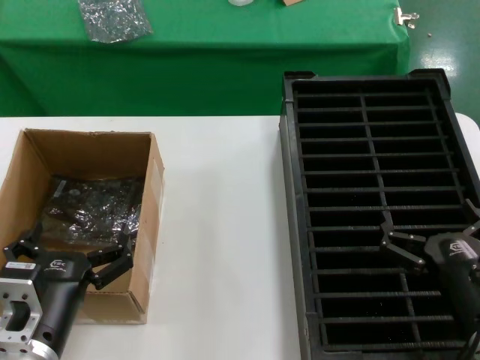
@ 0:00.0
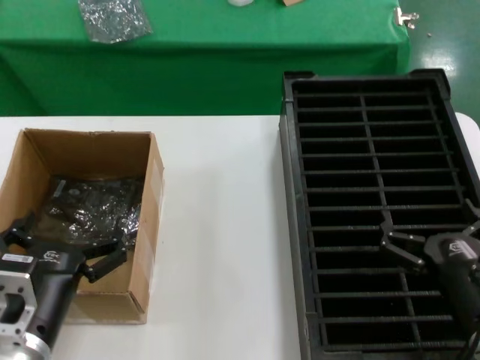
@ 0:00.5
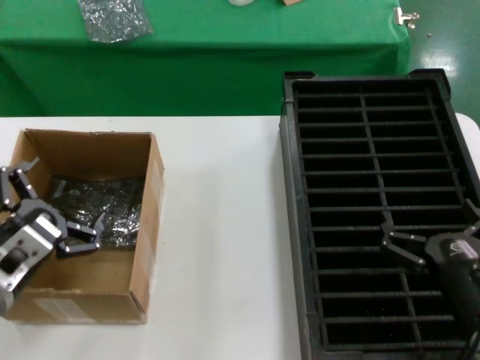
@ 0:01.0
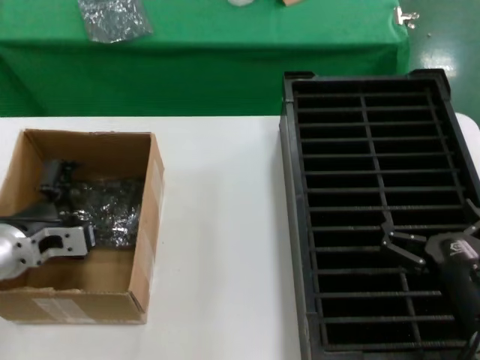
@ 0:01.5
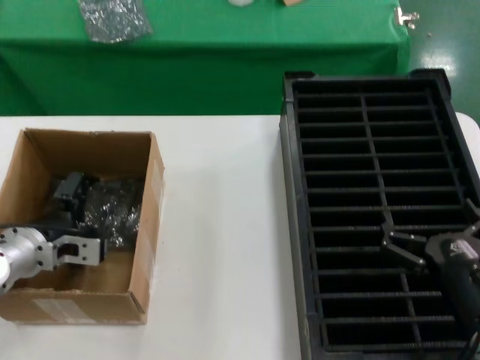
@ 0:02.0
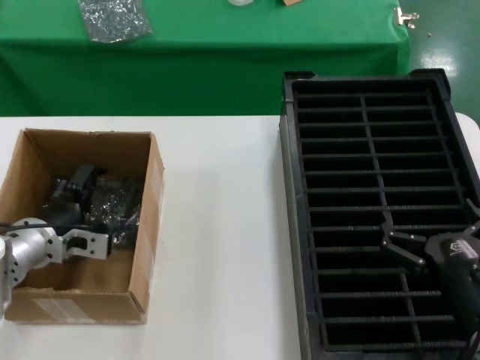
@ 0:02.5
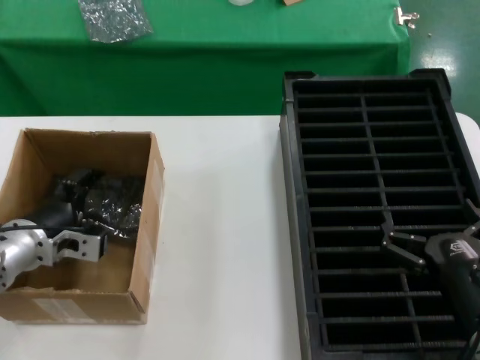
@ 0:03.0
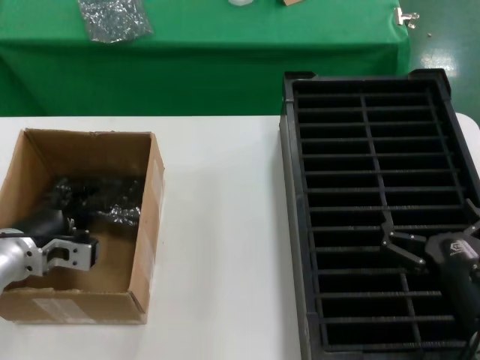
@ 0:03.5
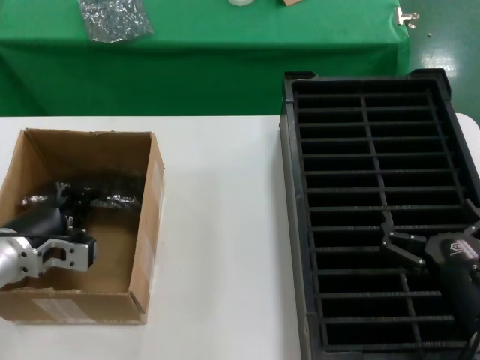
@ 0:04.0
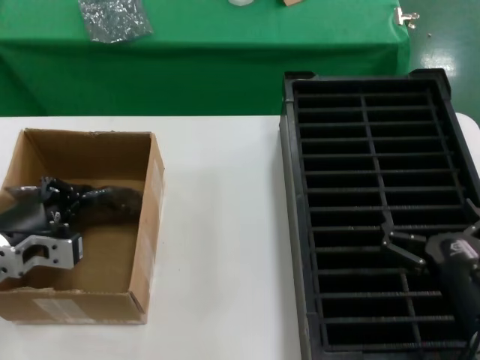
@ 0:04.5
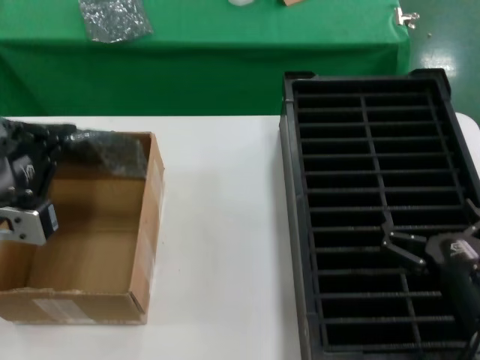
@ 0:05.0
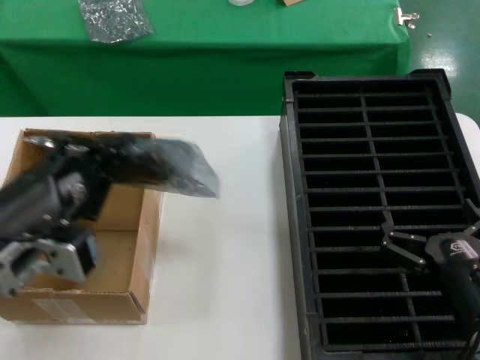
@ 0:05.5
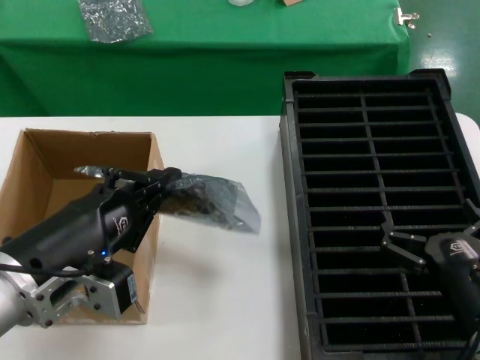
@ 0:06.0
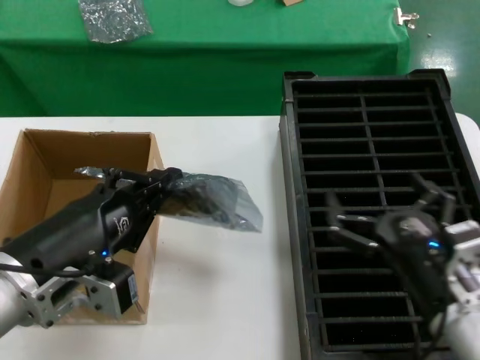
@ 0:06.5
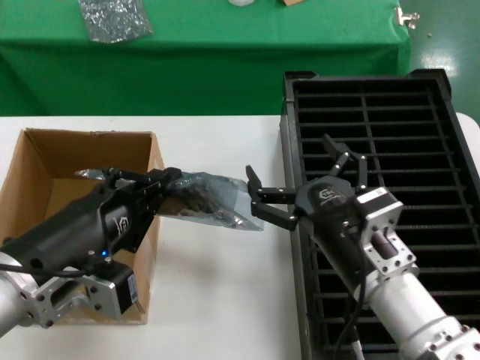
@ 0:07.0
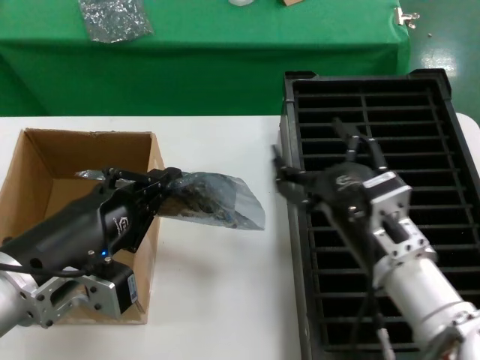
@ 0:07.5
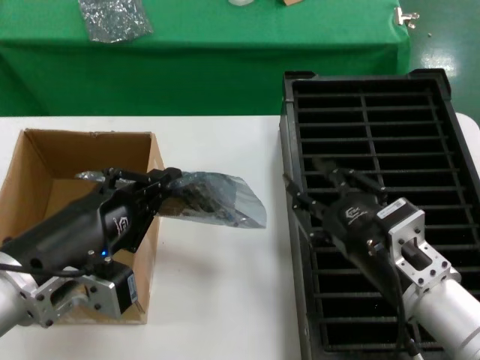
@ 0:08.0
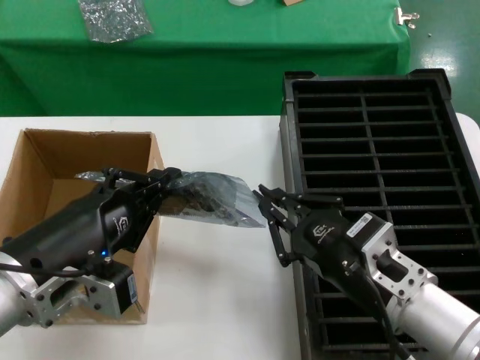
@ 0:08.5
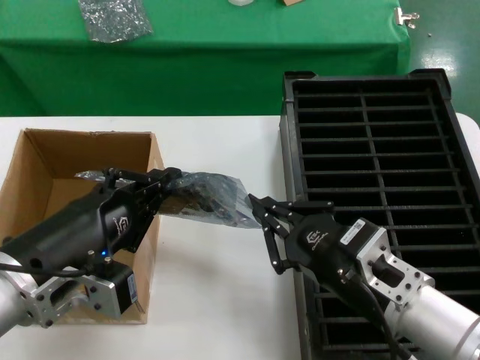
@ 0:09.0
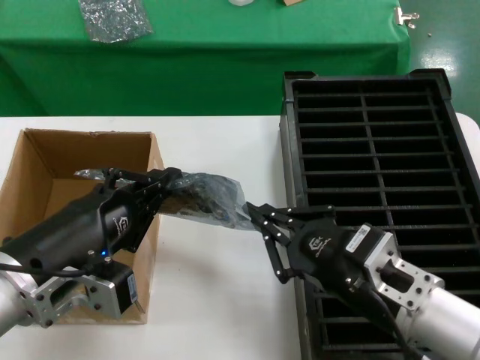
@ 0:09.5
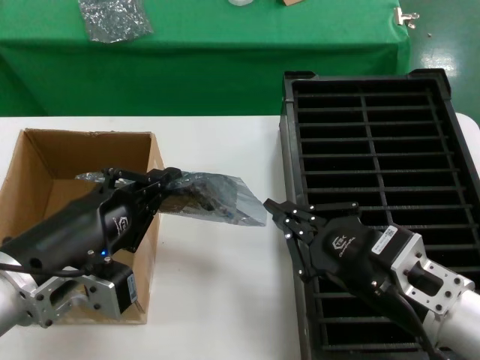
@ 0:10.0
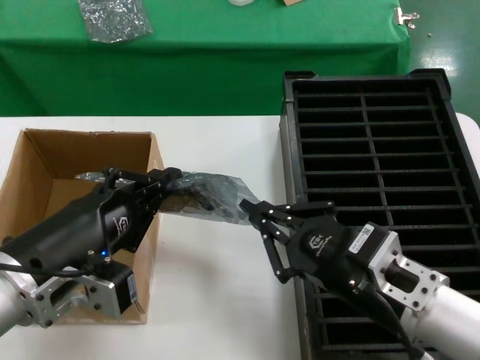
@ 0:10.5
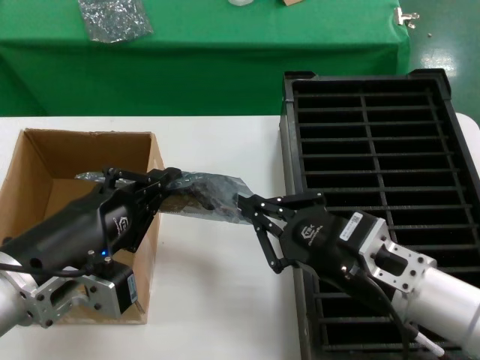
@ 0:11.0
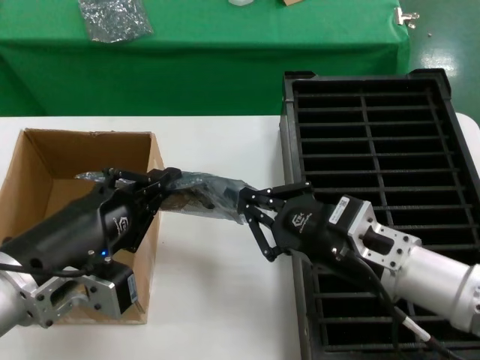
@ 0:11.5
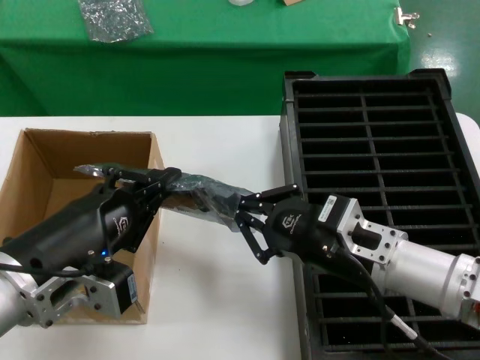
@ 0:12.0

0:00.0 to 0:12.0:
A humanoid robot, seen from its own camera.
Task of the whole recording: take out graphics card from box remove packaging put into black container.
Step, 0:00.0 to 0:03.5: Grasp the bag.
Step, 0:04.5 to 0:06.0: Lift the bag.
0:00.0 to 0:02.0: The left hand is displaced forward and to the left by approximately 20 cm.
0:02.0 to 0:04.0: There are only small adjustments of the hands.
0:04.0 to 0:06.0: The left hand moves backward, upward and to the right, roughly 20 cm.
0:06.0 to 0:08.0: The right hand is displaced to the left and upward by some 10 cm.
0:08.0 to 0:10.0: There are only small adjustments of the hands.
0:10.0 to 0:12.0: The right hand moves forward, roughly 10 cm.

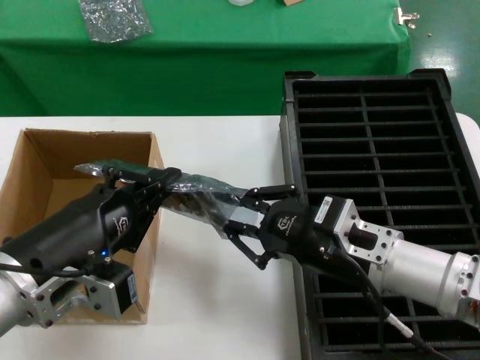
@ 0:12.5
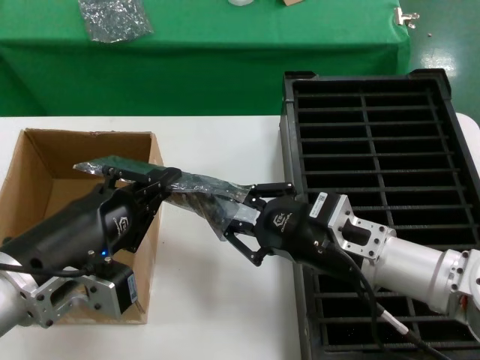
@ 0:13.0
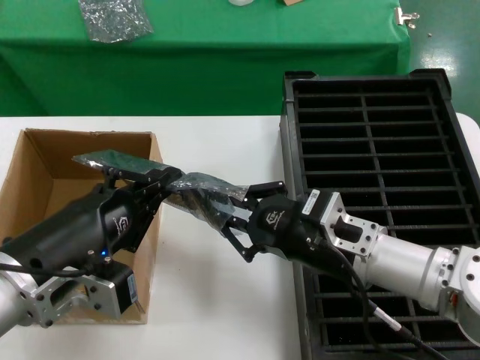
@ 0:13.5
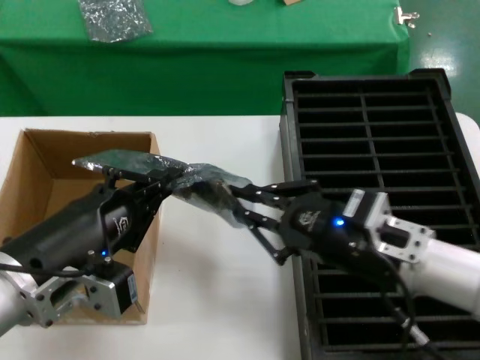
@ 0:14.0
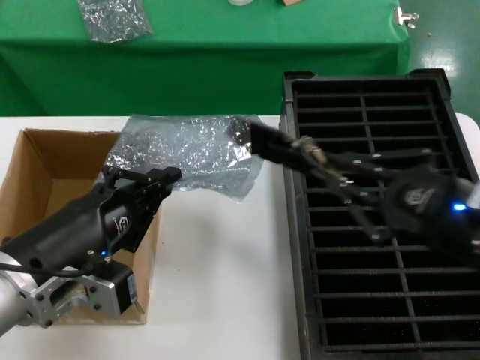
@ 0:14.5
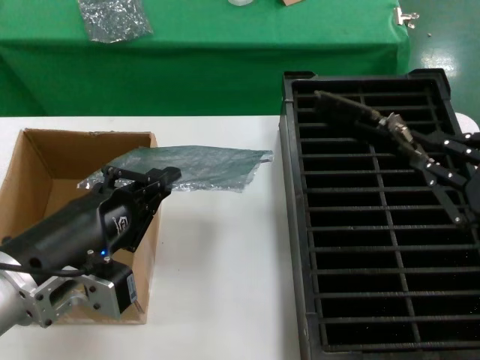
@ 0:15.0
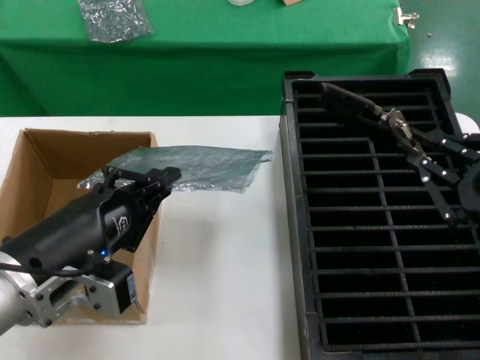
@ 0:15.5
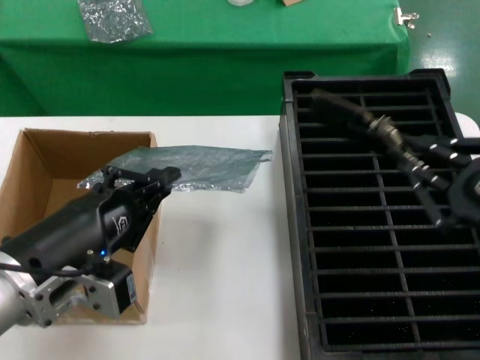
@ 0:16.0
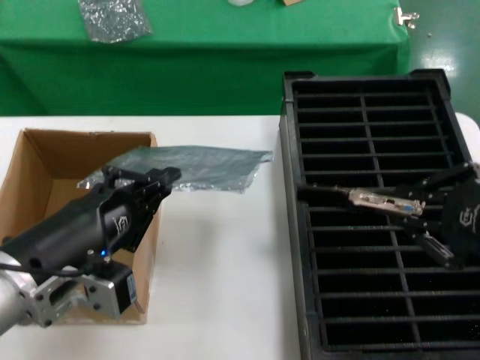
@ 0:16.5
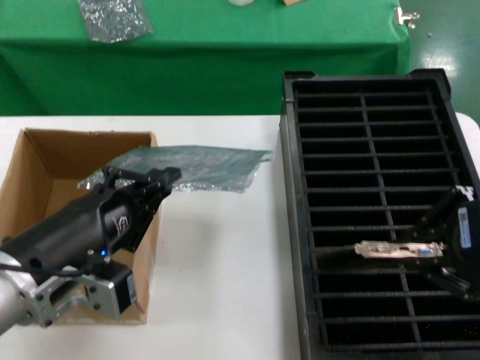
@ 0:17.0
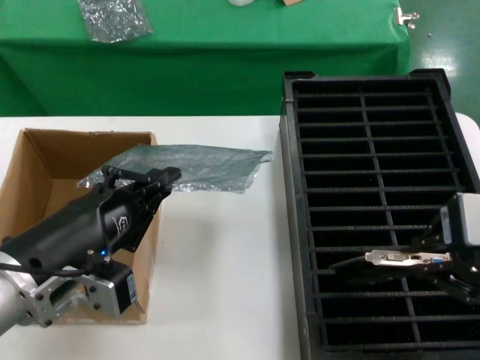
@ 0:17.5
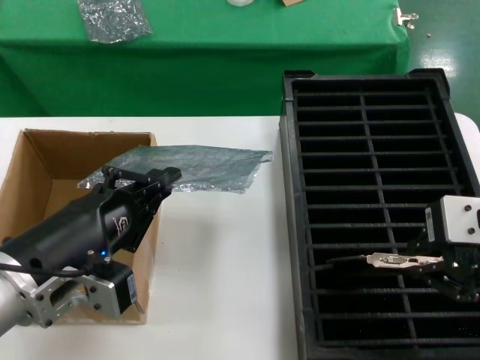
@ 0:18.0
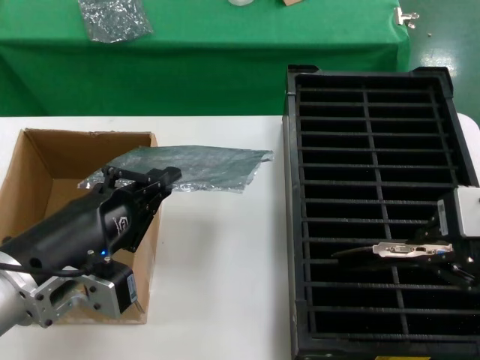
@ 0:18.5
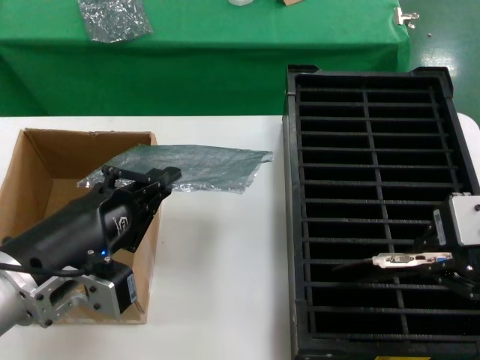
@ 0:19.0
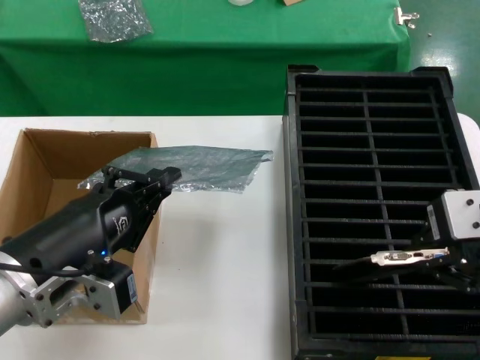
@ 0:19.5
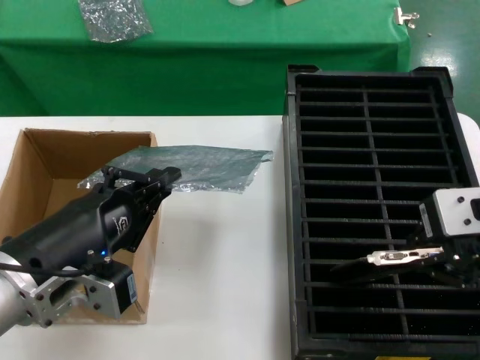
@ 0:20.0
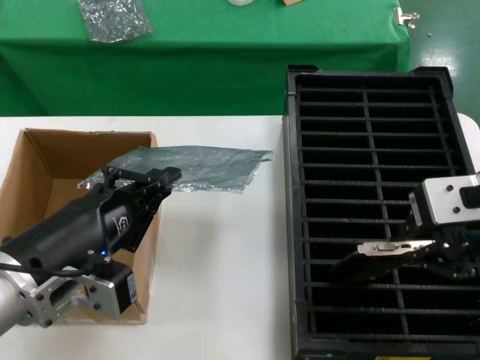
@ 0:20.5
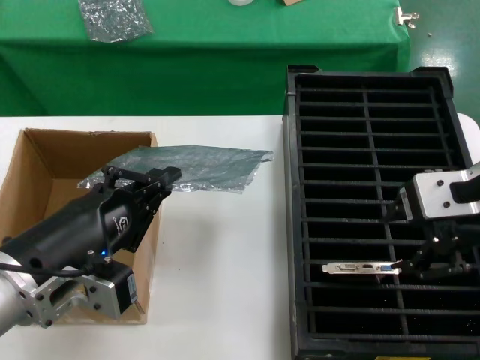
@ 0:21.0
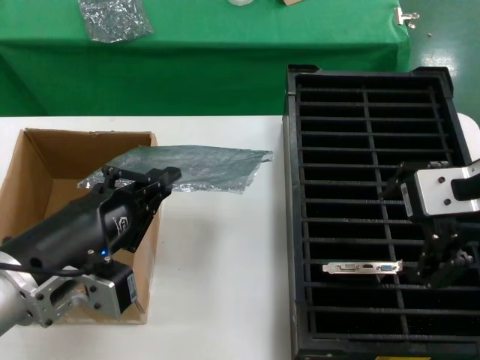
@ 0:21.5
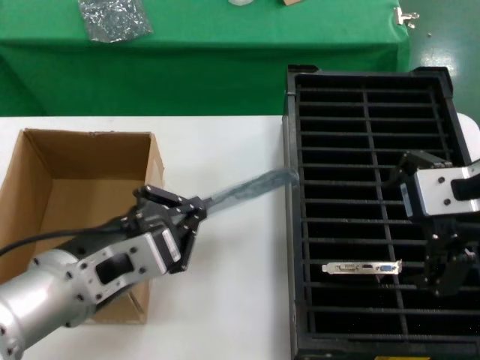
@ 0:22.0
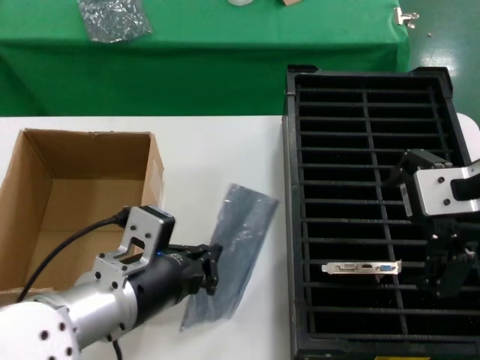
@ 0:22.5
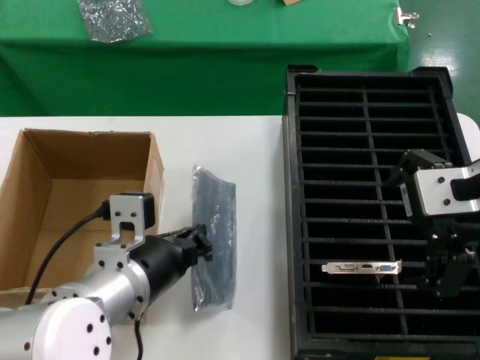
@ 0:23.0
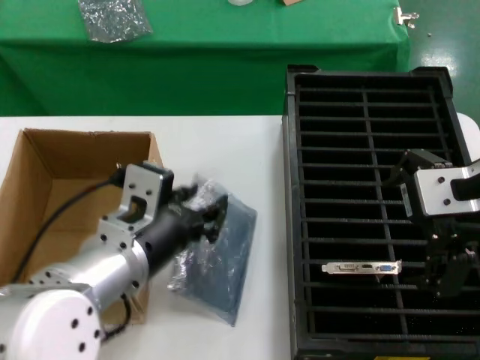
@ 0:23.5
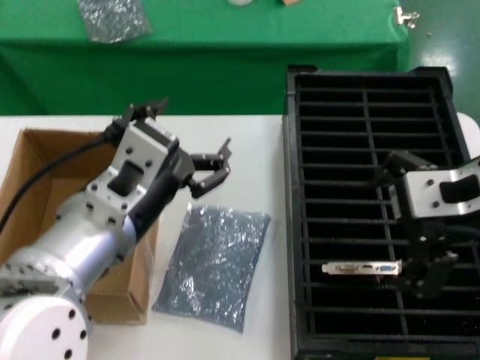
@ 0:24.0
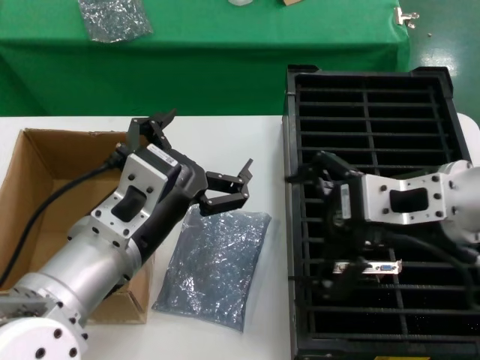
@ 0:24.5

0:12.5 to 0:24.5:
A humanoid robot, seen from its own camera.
Task of the whole recording: take out graphics card from box remove packaging put into black container.
Step, 0:12.5 to 0:14.5: Take out the hard disk of the bag.
Step, 0:15.0 to 0:20.5: Place the hard disk in the hard disk enclosure.
Step, 0:21.0 to 0:23.5: Place the down the bag.
0:12.5 to 0:14.5: The right hand goes some 15 cm to the right, backward and upward.
0:14.5 to 0:16.5: The right hand shifts some 5 cm upward.
0:16.5 to 0:18.5: The right hand shifts some 5 cm upward.
0:18.5 to 0:20.5: The hands move only a little.
0:20.5 to 0:22.5: The left hand goes approximately 5 cm to the right.
0:22.5 to 0:24.5: The right hand changes place by about 5 cm.

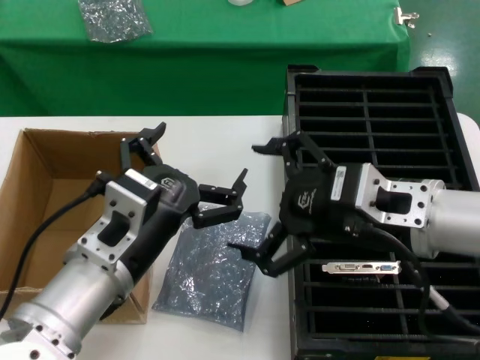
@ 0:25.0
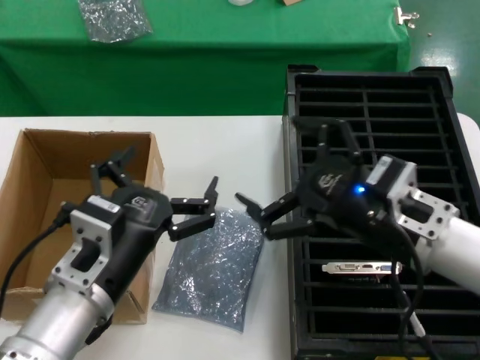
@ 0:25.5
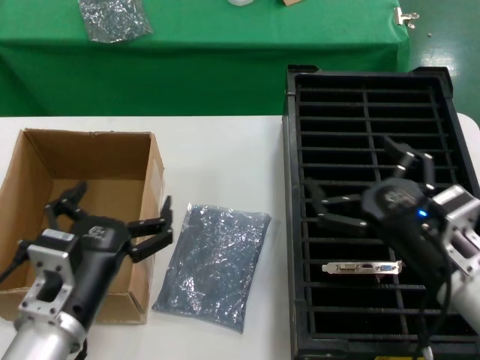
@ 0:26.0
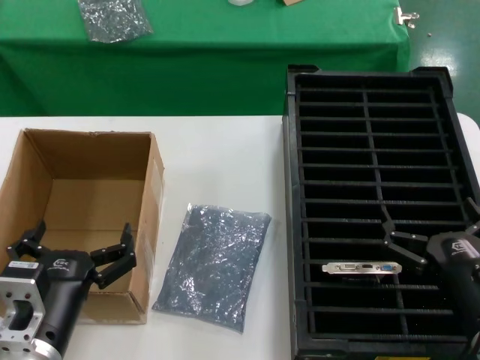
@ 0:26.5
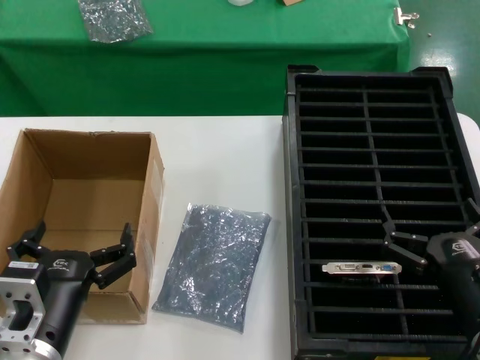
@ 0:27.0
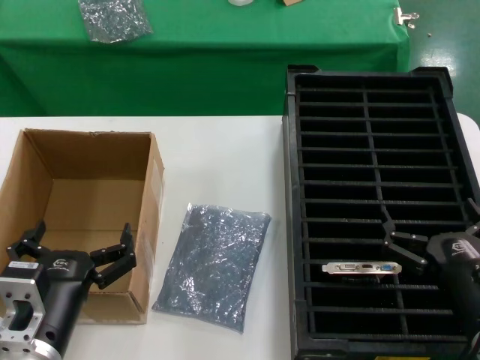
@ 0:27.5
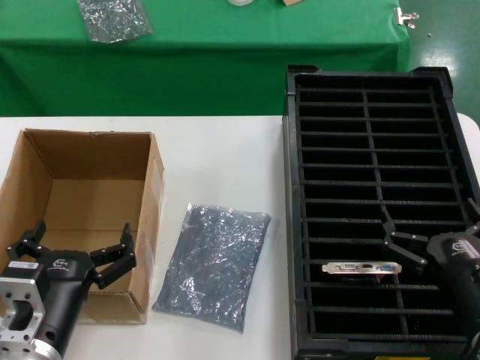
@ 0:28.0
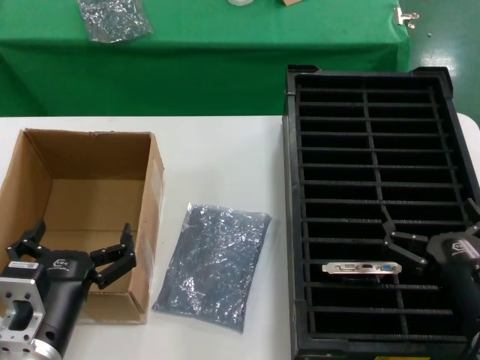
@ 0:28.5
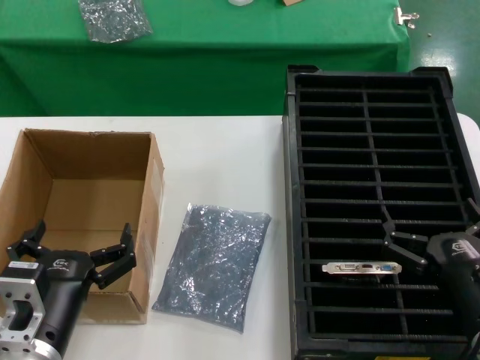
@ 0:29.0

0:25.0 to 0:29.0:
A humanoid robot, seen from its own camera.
Task of the whole recording: take out graphics card from box remove packaging put into black container.
0:25.0 to 0:27.0: The left hand goes roughly 15 cm downward and to the left. The right hand shifts approximately 20 cm downward.
0:27.0 to 0:29.0: Both hands stay put.
